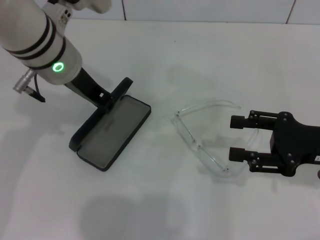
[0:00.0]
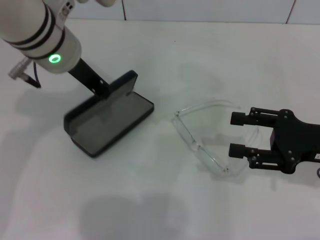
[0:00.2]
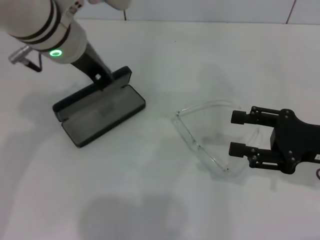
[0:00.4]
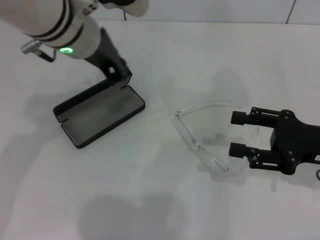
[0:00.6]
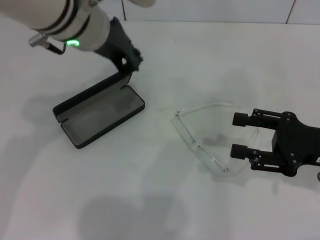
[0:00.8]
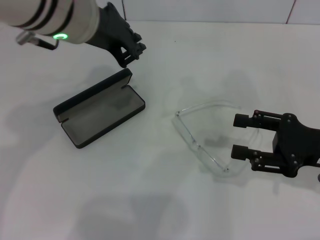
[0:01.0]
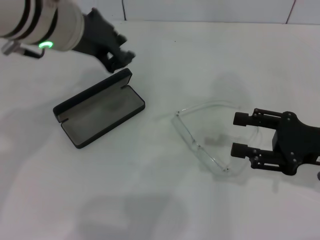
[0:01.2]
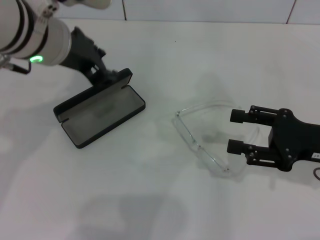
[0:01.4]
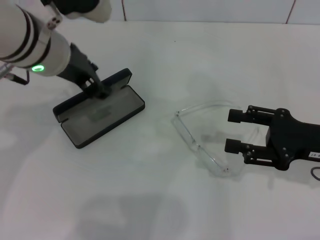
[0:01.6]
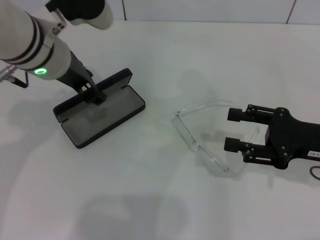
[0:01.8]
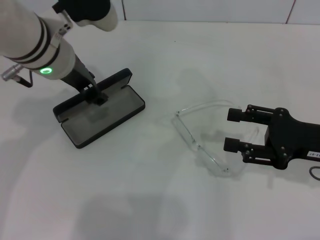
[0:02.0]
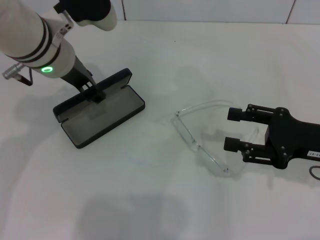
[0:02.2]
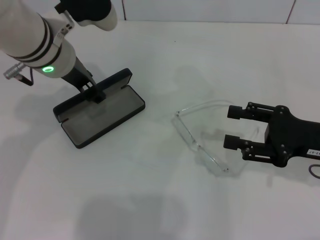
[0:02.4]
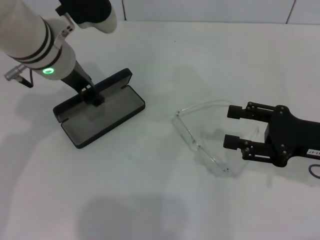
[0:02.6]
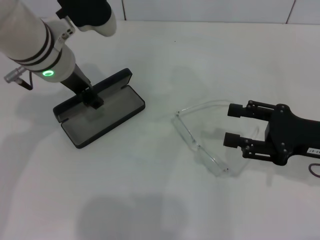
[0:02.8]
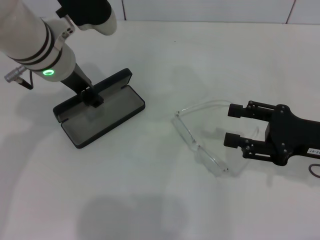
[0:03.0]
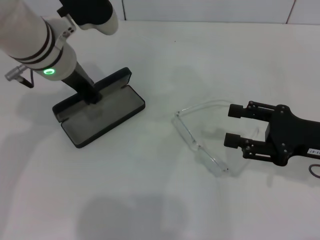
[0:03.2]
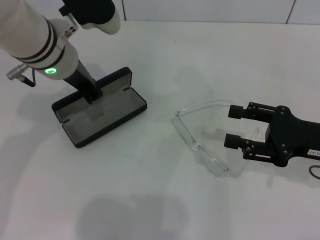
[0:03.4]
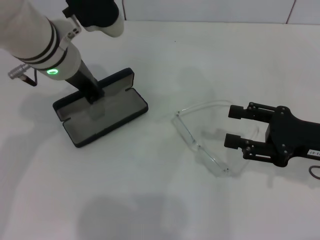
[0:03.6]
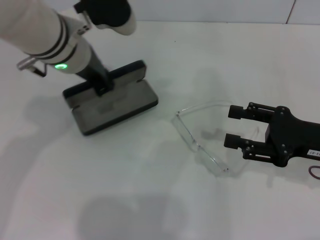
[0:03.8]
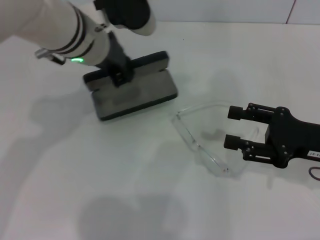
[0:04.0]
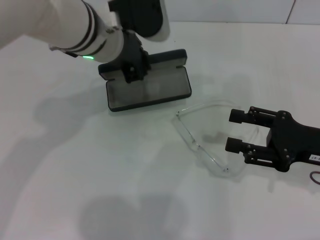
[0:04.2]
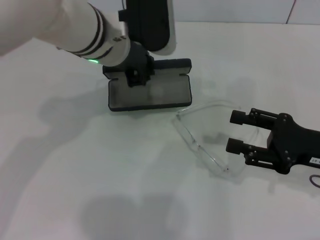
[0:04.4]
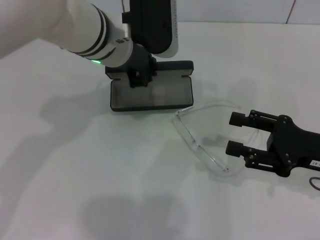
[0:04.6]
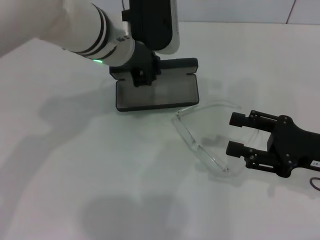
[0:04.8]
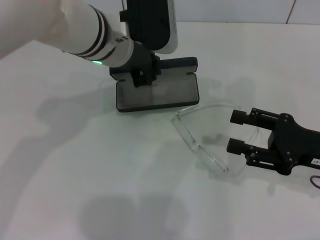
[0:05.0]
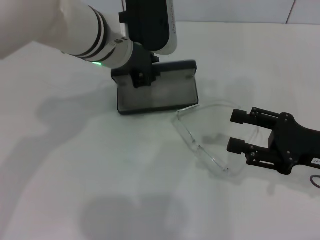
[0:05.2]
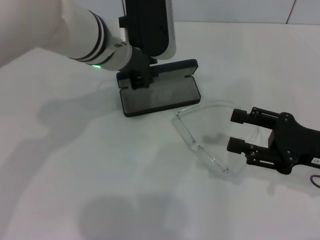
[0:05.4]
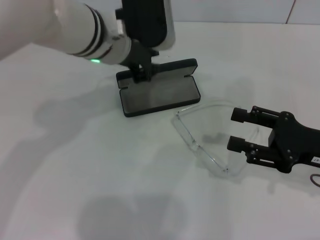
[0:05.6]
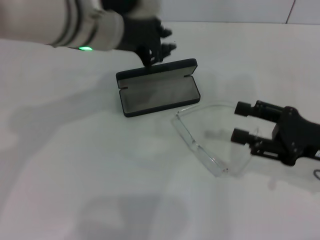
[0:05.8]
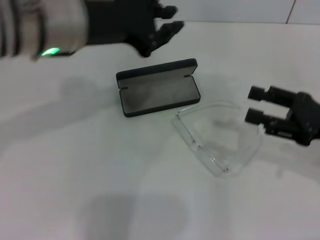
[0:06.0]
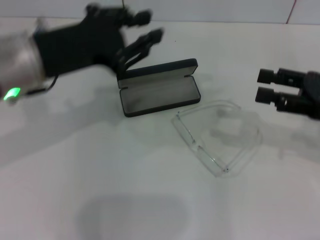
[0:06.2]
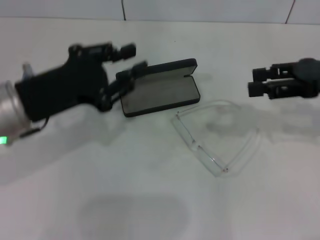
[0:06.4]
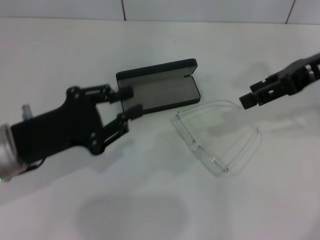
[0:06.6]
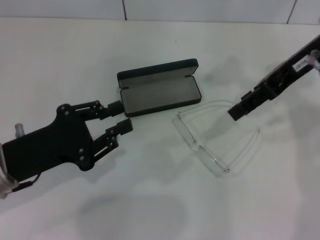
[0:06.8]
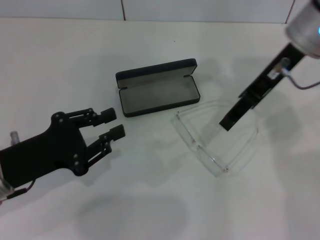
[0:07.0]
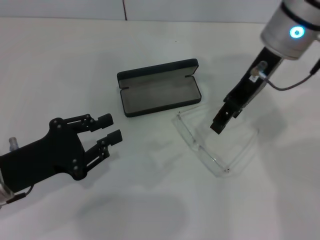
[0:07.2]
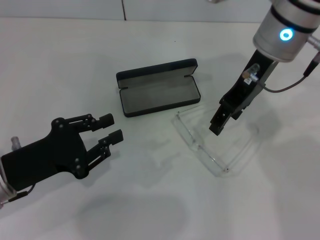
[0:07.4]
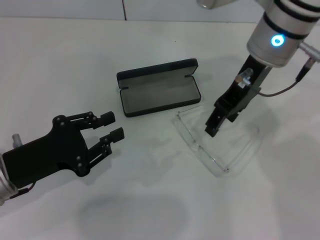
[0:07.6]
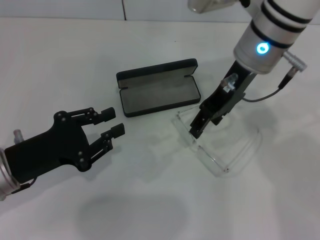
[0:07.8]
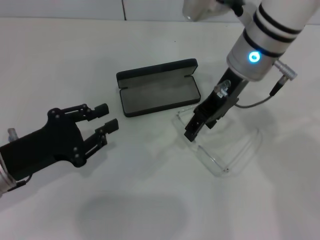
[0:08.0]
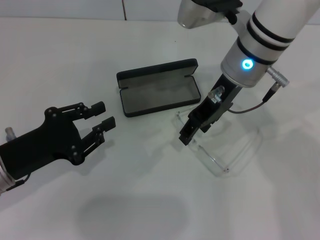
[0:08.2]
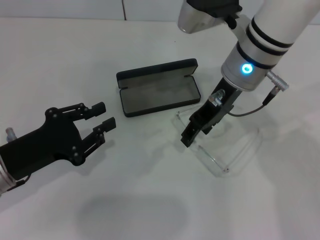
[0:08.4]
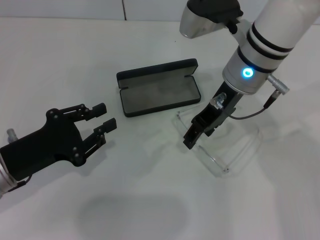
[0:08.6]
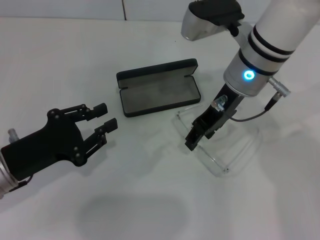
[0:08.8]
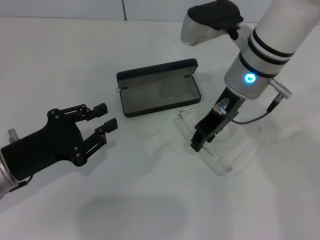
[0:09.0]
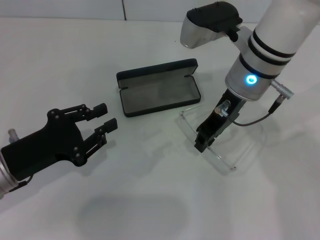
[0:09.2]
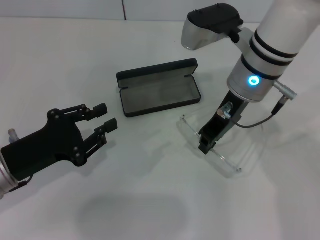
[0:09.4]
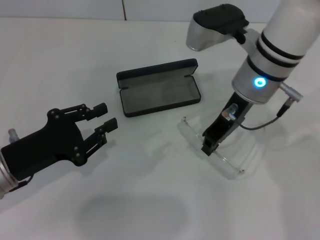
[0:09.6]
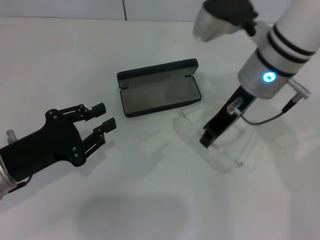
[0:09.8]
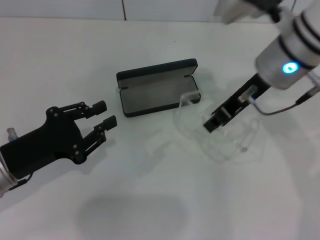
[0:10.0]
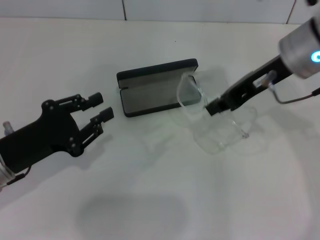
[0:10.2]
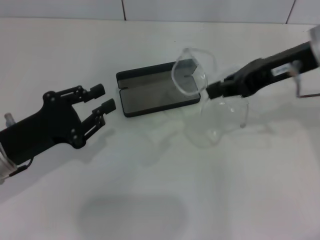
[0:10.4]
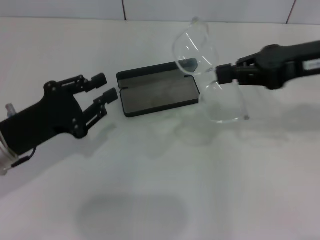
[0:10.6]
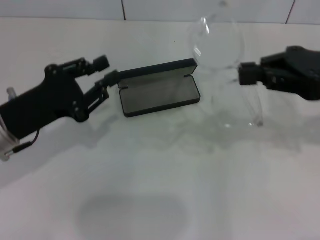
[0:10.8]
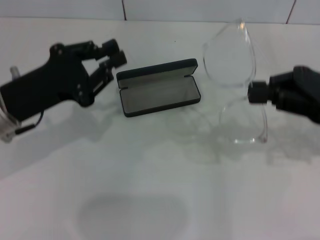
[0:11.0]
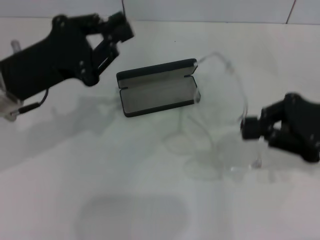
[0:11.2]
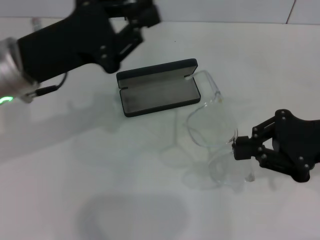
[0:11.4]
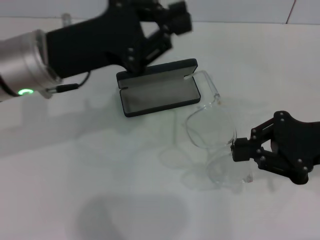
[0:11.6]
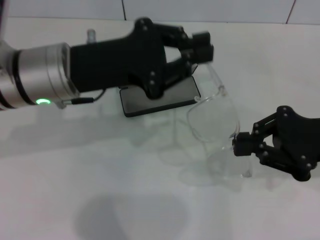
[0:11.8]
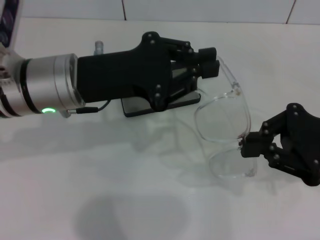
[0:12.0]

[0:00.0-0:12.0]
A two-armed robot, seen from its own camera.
Step, 0:00.0 to 0:00.4: Place the glasses case in the center of the table with your left hand.
Step, 0:00.6 to 0:03.4: Grab the glasses case with your left hand.
Step, 0:03.6 to 0:05.4: Place the glasses case in the center of the table with your left hand.
Step, 0:05.6 to 0:09.2: Grab the eyeglass frame with your right hand.
0:01.6 to 0:03.0: The grippers stay close to where they were, moving slightly.
0:03.0 to 0:04.4: The left gripper is displaced to the right by some 5 cm, and closes up.
0:04.4 to 0:06.0: The left gripper shifts some 5 cm to the left.
0:06.0 to 0:07.6: The right gripper shifts roughly 25 cm to the left, upward and forward. Meanwhile the left gripper shifts approximately 20 cm downward, backward and to the left.
0:07.6 to 0:09.0: The right gripper shifts approximately 5 cm downward.
0:09.0 to 0:10.4: The right gripper shifts about 15 cm to the right and upward, and closes.
0:10.4 to 0:12.0: The right gripper is displaced downward, backward and to the right by approximately 15 cm; the left gripper goes about 15 cm to the right, upward and forward.

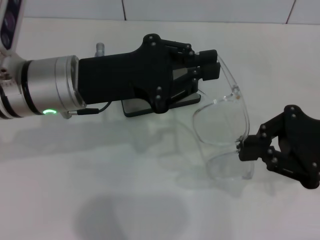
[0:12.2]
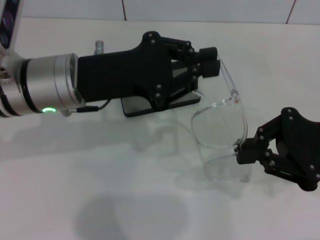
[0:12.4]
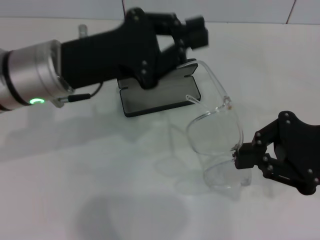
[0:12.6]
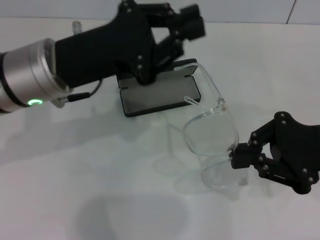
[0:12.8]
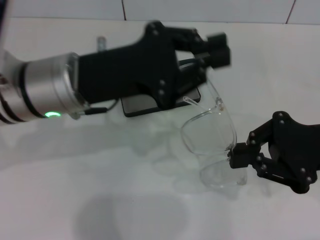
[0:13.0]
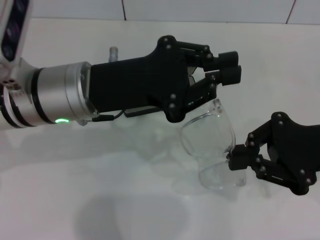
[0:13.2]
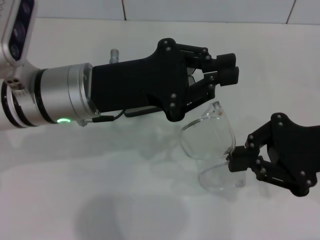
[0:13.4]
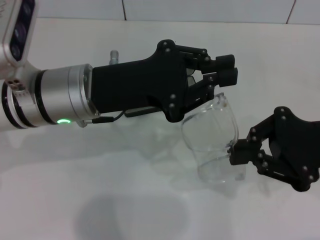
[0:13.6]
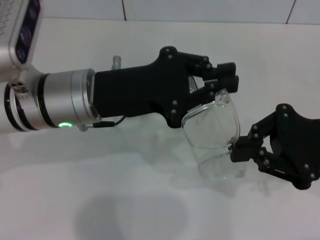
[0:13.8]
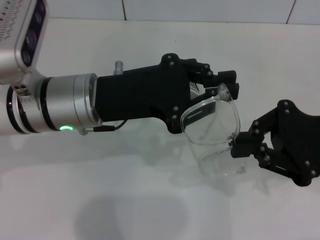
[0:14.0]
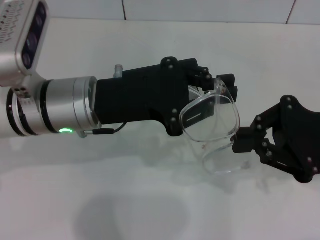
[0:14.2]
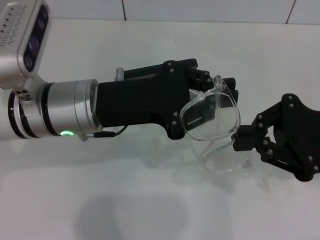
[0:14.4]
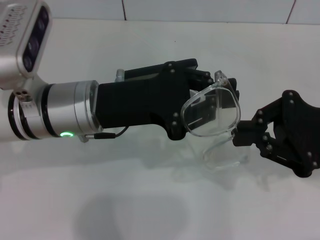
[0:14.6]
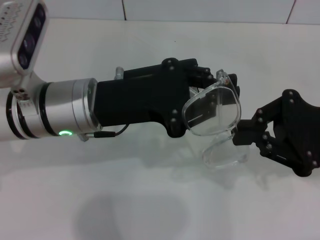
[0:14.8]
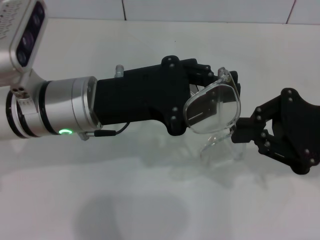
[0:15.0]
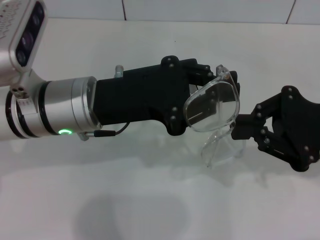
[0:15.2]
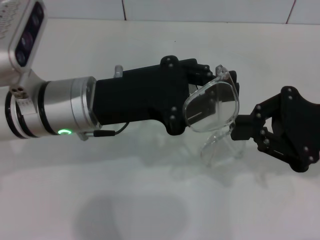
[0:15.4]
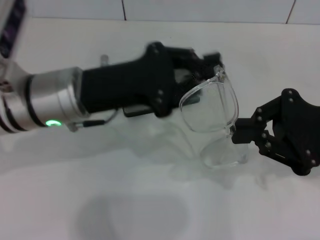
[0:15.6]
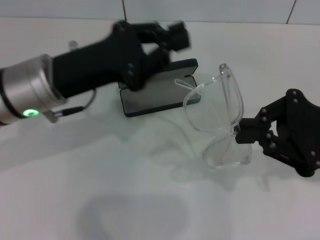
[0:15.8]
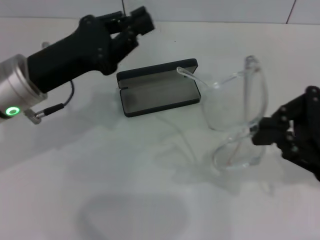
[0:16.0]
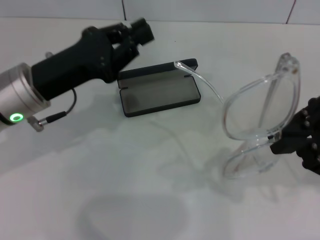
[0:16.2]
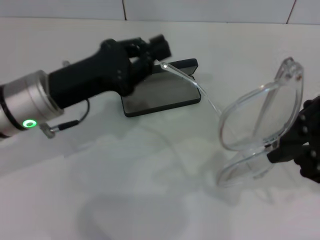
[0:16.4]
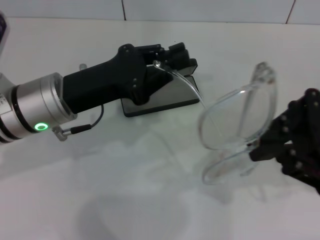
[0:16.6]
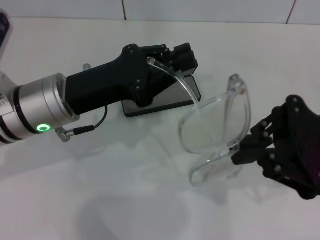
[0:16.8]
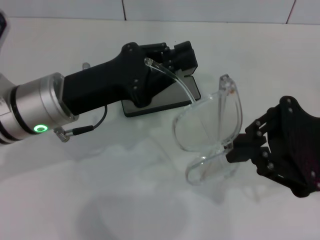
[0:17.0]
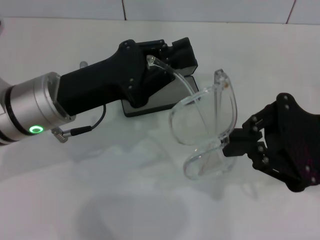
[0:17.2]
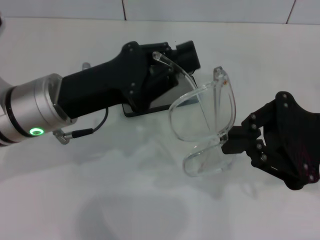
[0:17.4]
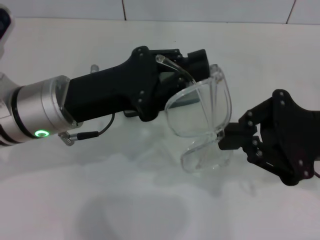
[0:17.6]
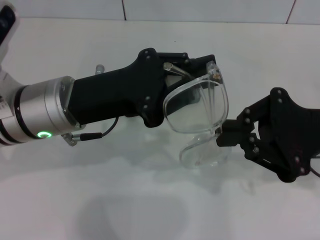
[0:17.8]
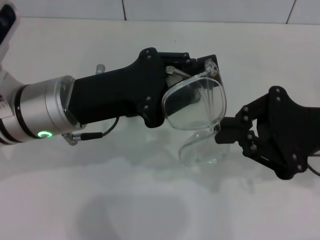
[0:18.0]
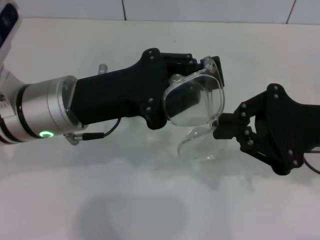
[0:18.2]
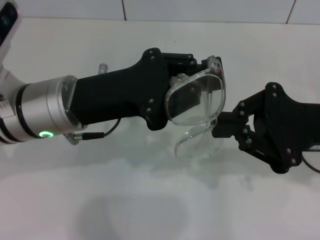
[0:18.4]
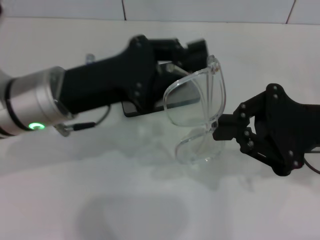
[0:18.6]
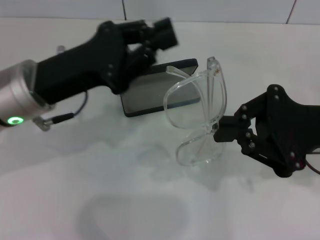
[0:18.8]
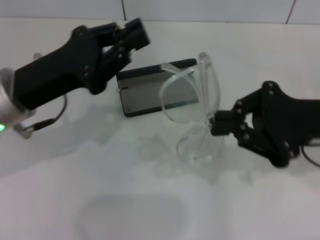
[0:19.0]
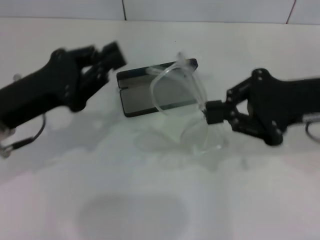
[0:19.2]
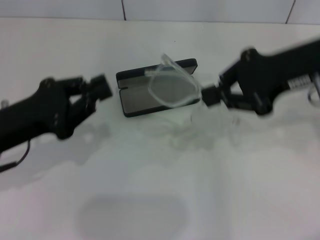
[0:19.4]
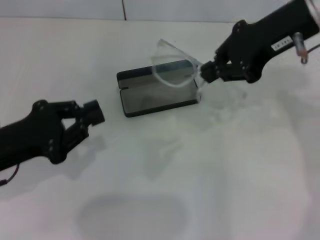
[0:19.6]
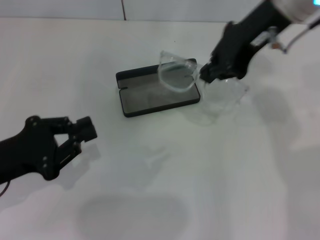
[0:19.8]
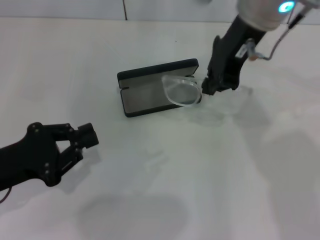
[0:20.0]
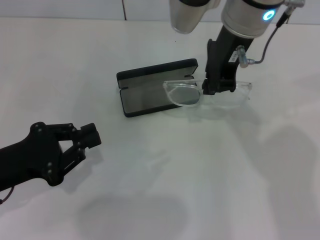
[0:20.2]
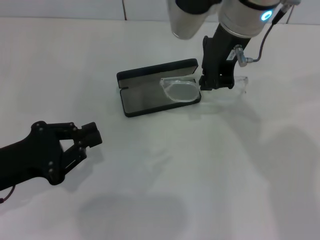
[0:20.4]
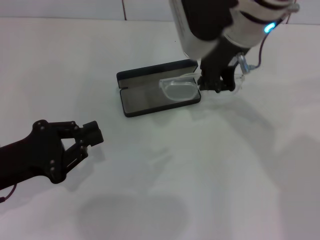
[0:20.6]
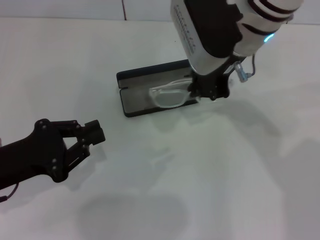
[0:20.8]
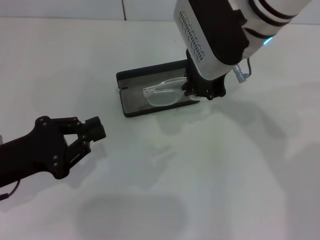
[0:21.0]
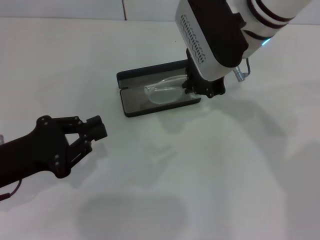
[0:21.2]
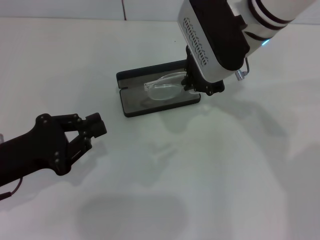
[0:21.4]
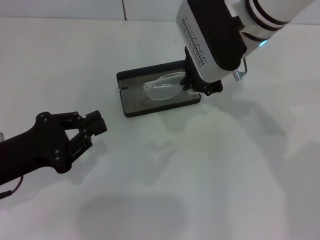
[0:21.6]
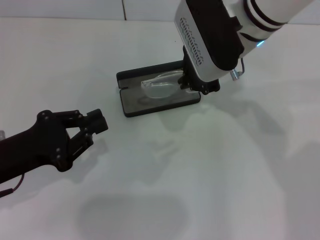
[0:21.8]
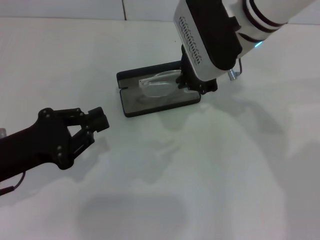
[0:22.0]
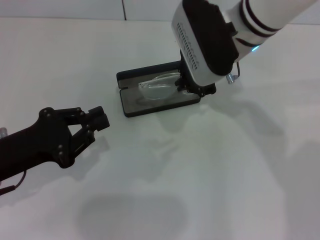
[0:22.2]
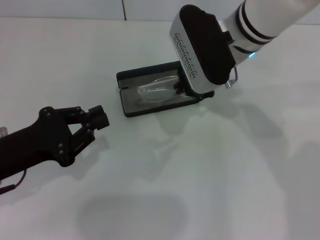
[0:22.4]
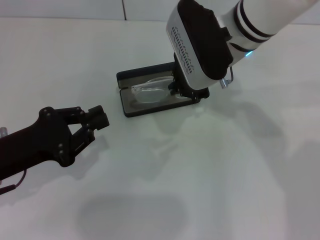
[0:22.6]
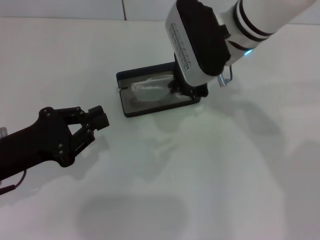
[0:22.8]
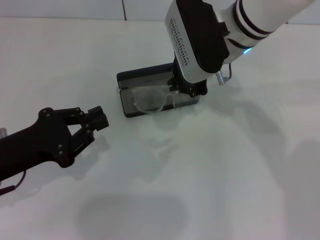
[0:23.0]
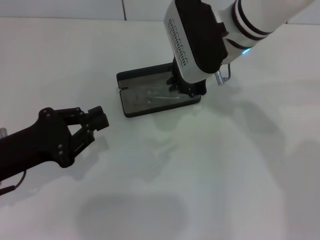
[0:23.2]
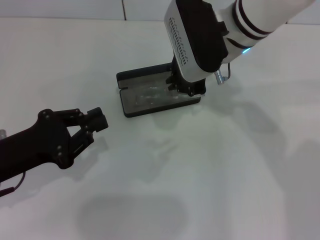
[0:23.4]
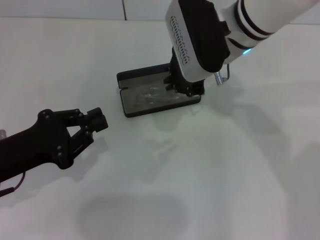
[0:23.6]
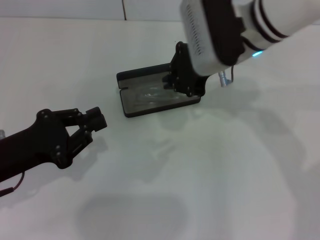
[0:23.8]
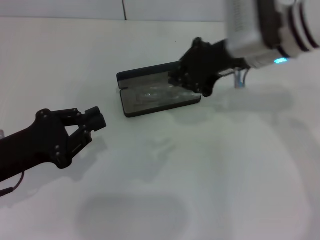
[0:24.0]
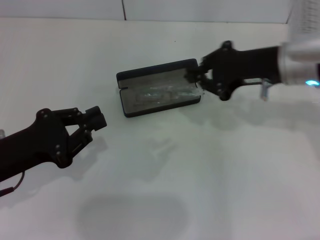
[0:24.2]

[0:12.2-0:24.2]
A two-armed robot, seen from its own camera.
Step, 0:12.2 to 0:18.4: Fold the frame with your left hand.
0:12.2 to 0:15.2: The grippers move only a little.
0:18.2 to 0:19.8: The left gripper goes roughly 15 cm to the left, backward and downward. Meanwhile the right gripper moves upward, forward and to the left, approximately 20 cm.
0:19.8 to 0:21.2: The right gripper is displaced downward by roughly 5 cm.
0:21.2 to 0:22.6: There are only small adjustments of the grippers.
0:22.6 to 0:24.2: The right gripper travels to the right by approximately 10 cm.
